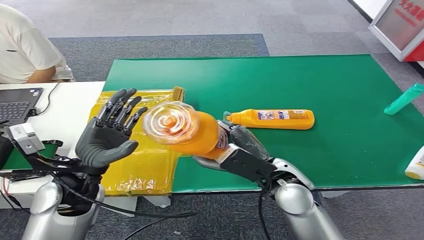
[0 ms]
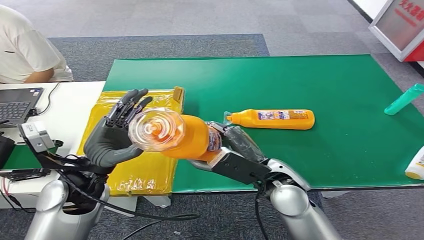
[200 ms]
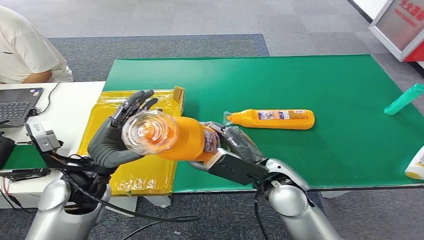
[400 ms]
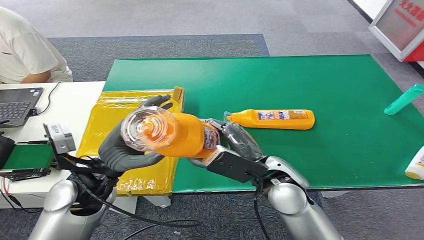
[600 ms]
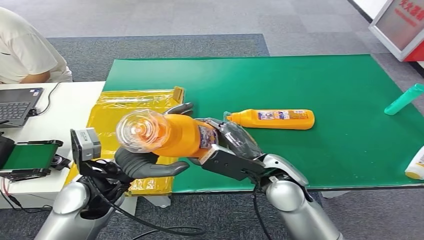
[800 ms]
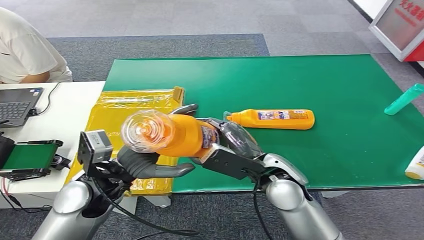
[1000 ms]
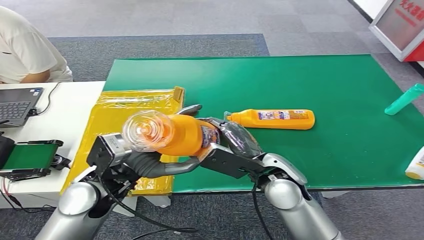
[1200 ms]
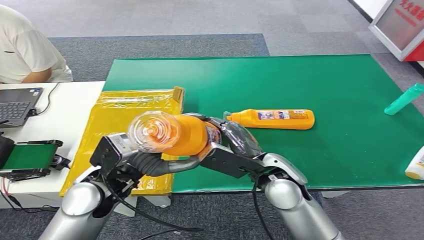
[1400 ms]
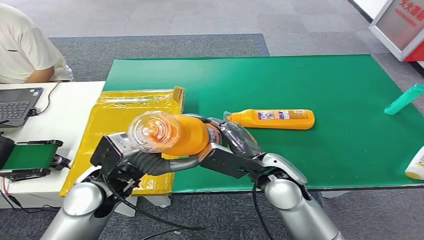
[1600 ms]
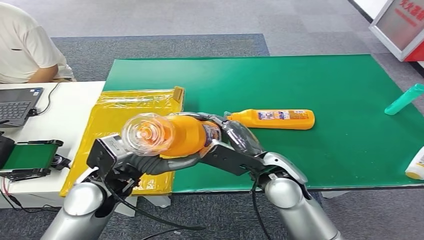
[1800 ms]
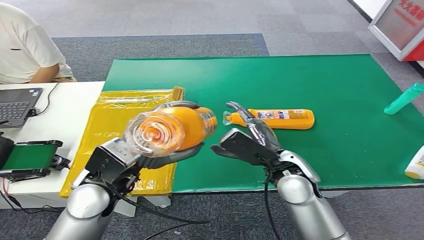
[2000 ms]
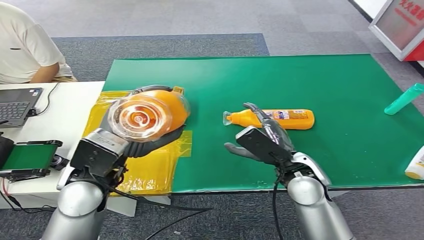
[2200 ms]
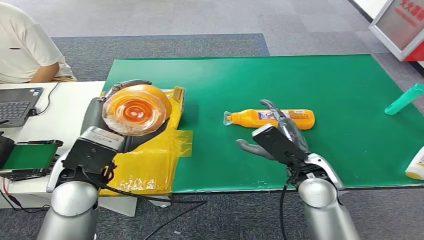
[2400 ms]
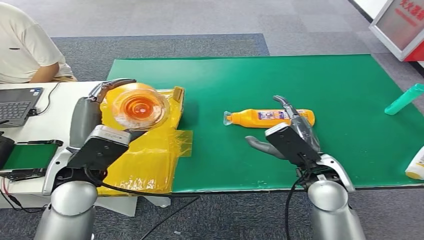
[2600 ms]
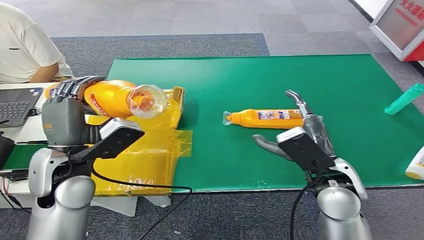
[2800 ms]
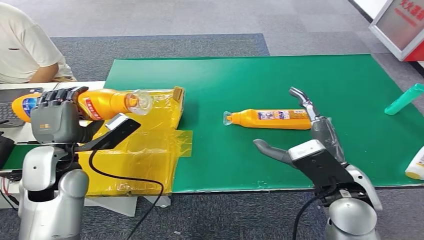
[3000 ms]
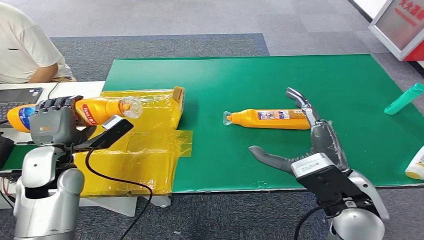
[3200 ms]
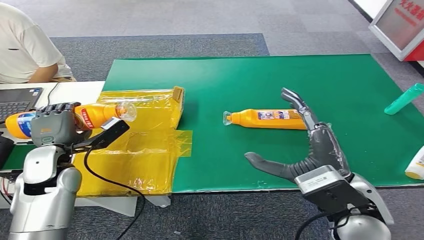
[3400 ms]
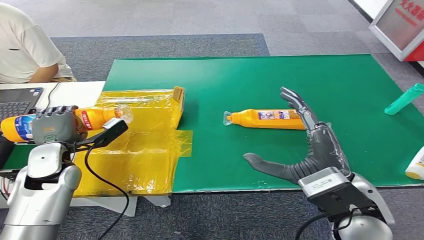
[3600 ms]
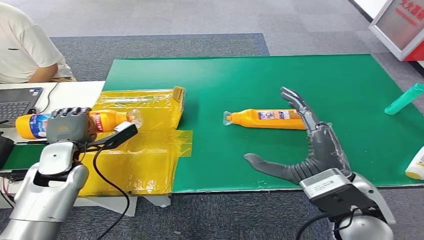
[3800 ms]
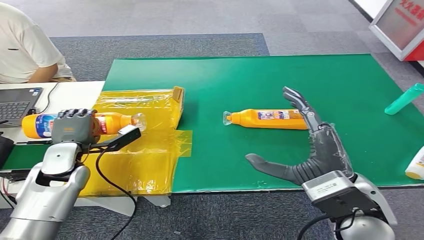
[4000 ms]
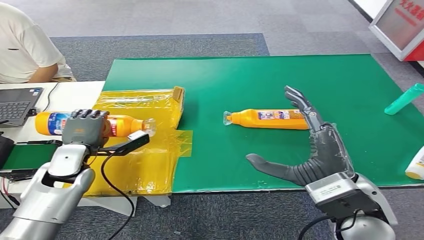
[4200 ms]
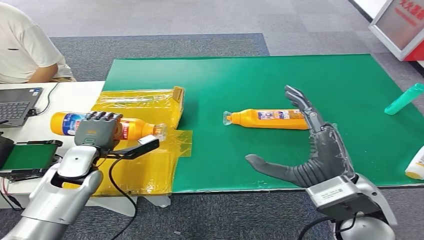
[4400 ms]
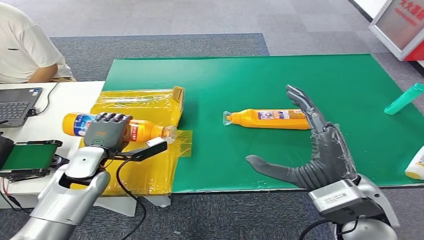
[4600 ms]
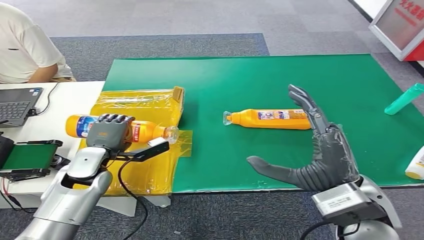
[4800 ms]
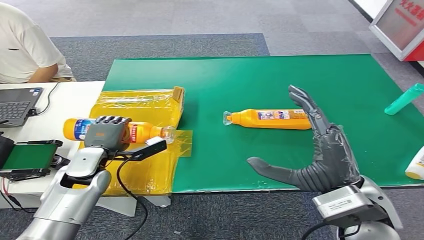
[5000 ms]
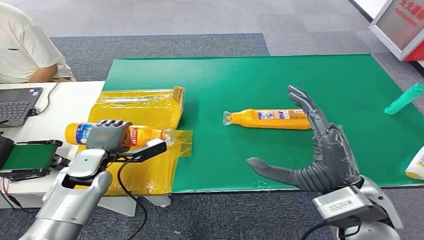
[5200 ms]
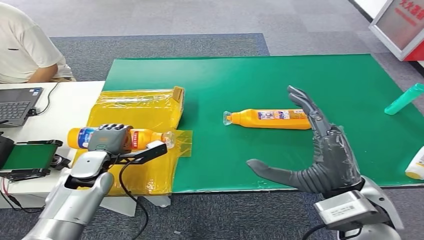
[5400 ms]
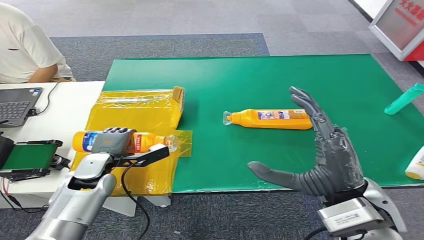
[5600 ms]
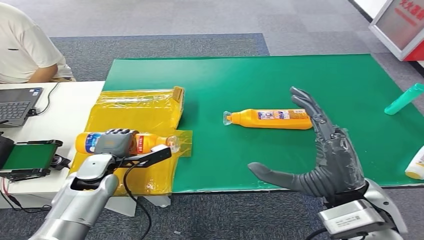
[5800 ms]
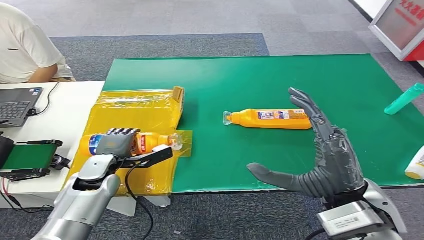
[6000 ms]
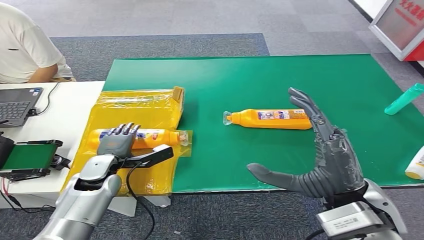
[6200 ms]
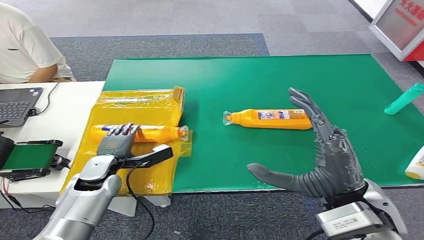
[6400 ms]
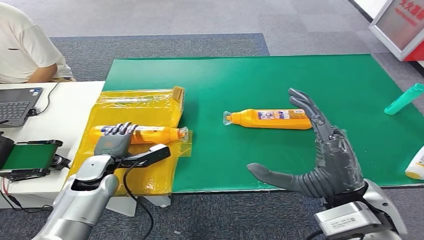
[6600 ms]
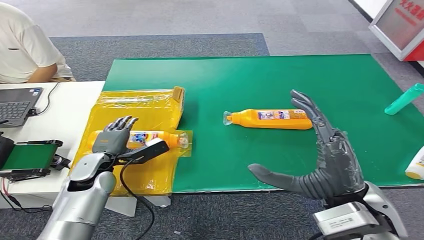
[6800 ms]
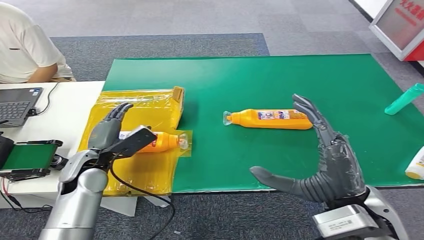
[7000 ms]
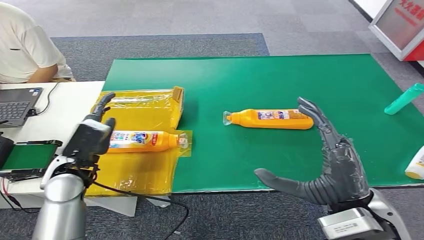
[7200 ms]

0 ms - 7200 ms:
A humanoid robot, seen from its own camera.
Step, 1200 ms - 7200 ms: Turn the bottle to the front side.
0 ms - 1400 ms: The left hand heads to the right, covering about 5 cm.
4400 ms - 5800 ms: The hands make only small movements.
5800 ms - 7200 ms: The left hand travels upward by about 10 cm.
